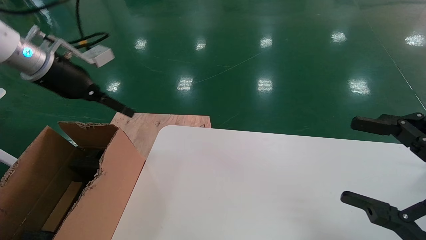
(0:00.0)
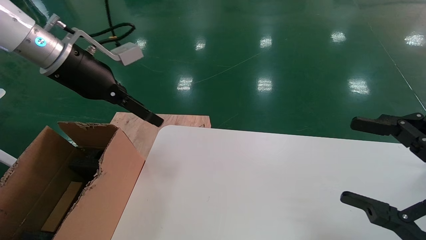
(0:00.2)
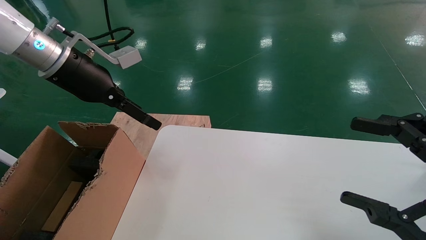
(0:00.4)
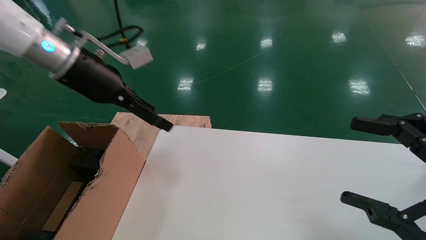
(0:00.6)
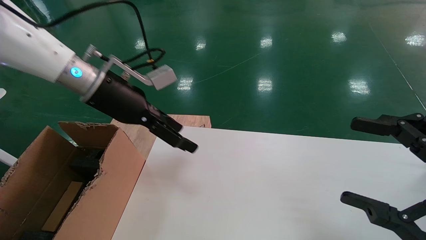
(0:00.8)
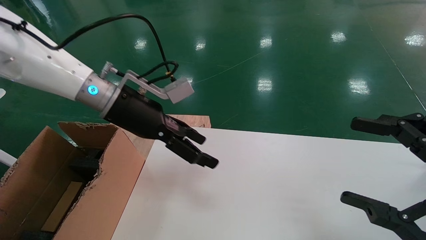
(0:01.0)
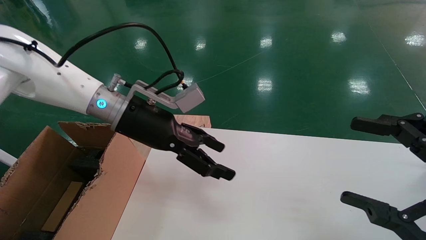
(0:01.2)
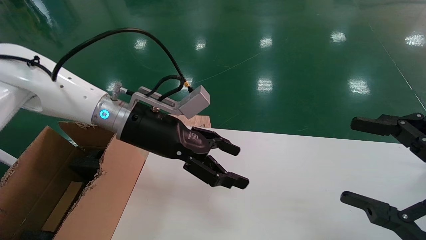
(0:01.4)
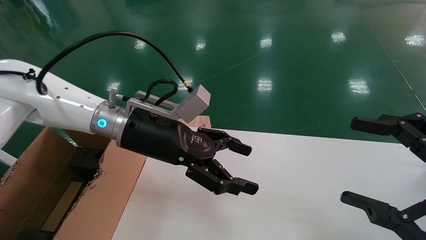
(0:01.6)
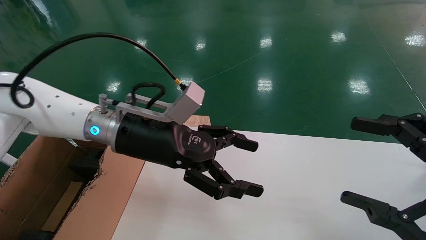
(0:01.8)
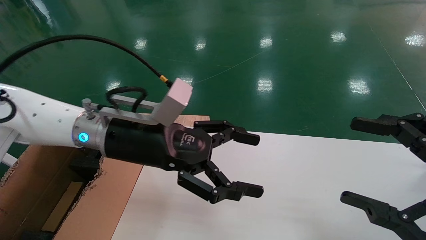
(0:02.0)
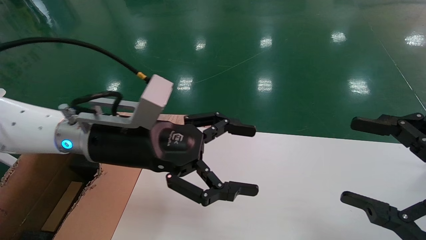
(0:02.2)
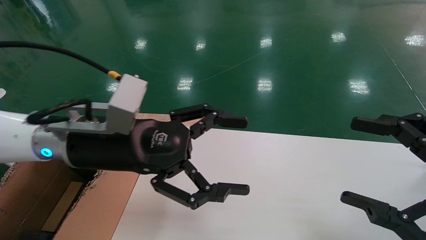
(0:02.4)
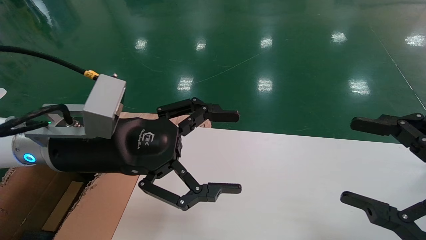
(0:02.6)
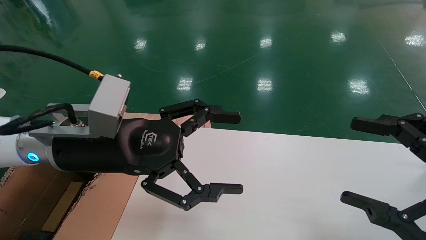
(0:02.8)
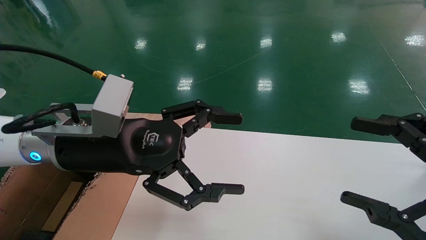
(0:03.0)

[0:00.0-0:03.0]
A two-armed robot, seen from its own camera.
Task of the whole recording: place the small box on the table into the large box on the left.
0:00.0 to 0:01.6: The left gripper heads to the right, covering approximately 20 cm.
0:01.6 to 0:03.0: The left gripper is displaced backward by roughly 10 cm.
